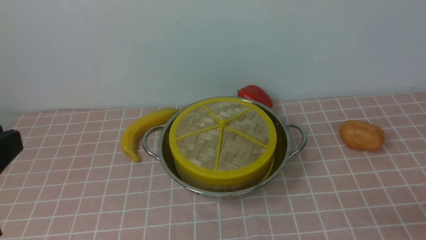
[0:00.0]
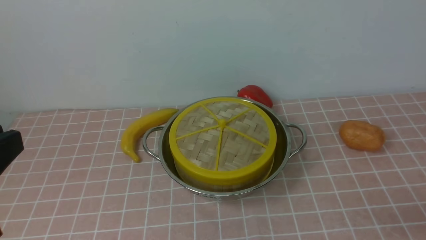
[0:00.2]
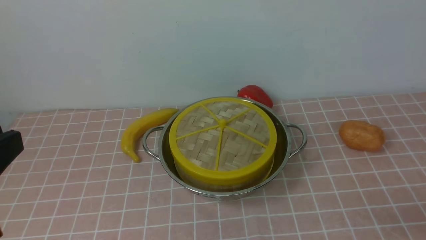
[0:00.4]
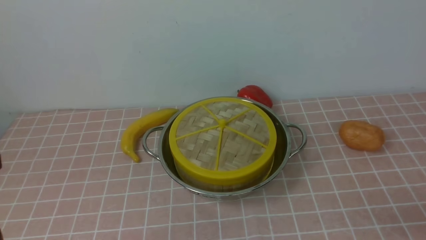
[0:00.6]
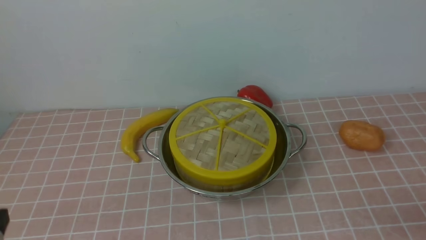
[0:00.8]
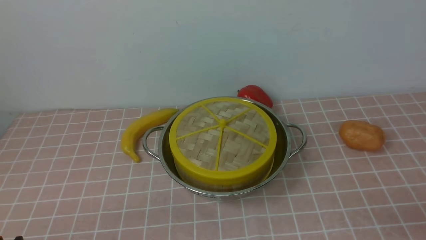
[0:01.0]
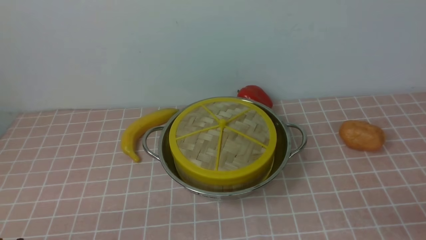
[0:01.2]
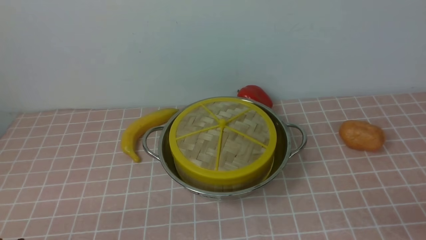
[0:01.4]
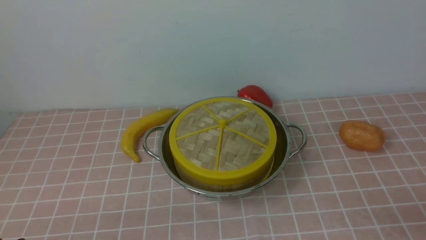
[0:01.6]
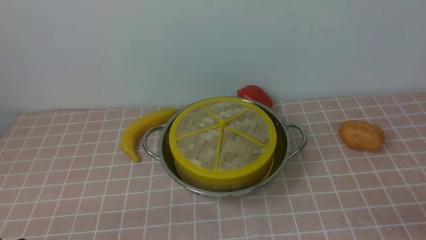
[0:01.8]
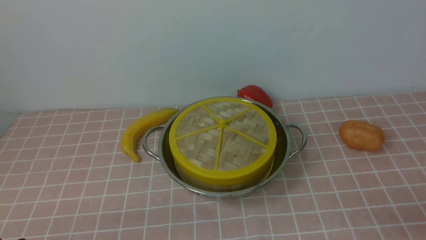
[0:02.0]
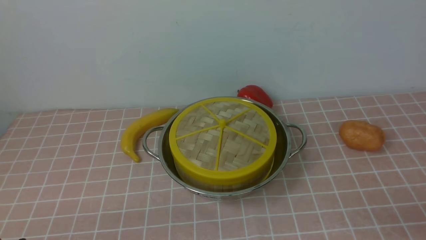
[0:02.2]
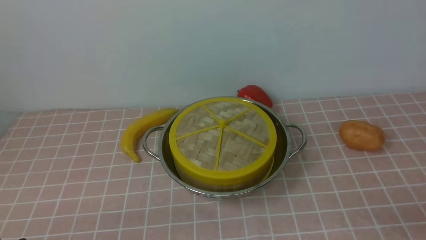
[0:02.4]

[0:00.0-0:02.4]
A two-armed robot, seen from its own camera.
Task of the whole recording: place the steamer in the pot on the pink tablecloth, and put the lid on the steamer.
0:00.0 to 0:01.2: The left gripper heads downward, covering approximately 20 cm.
0:01.2 to 0:02.4: Both grippers stay about where they are.
